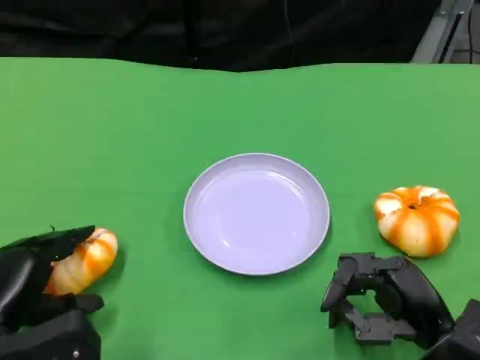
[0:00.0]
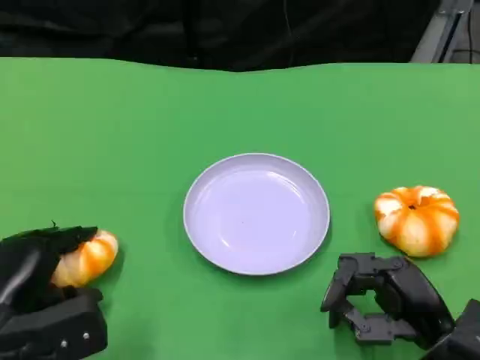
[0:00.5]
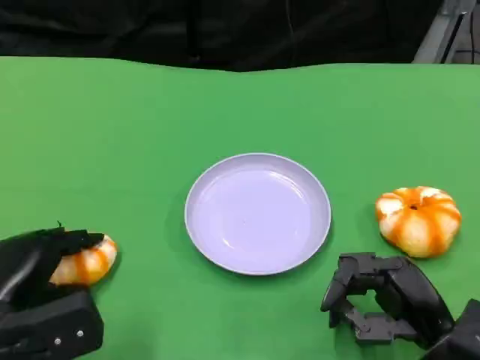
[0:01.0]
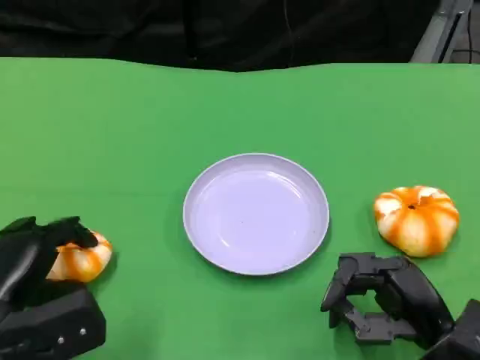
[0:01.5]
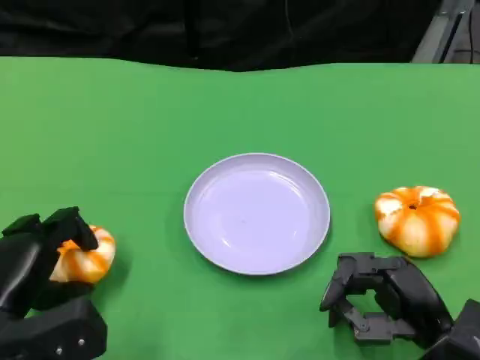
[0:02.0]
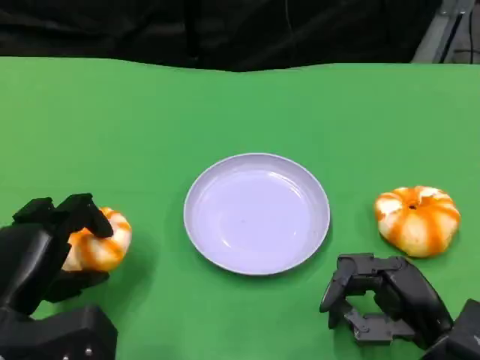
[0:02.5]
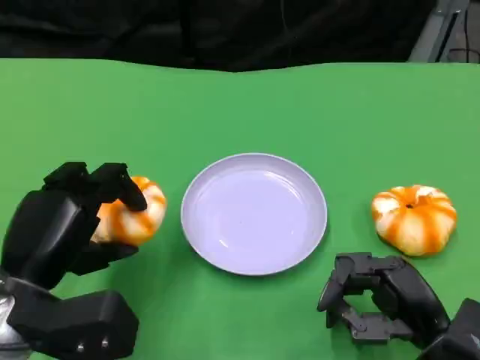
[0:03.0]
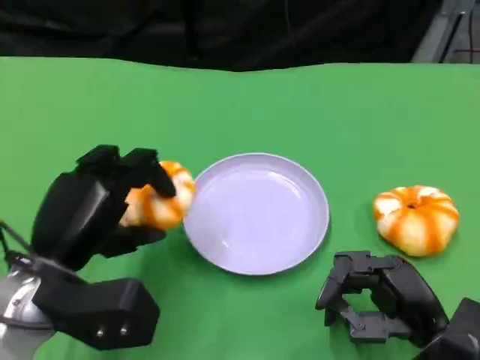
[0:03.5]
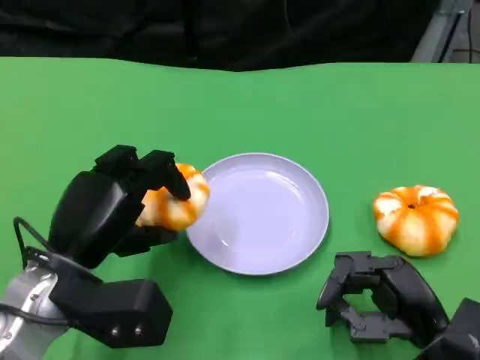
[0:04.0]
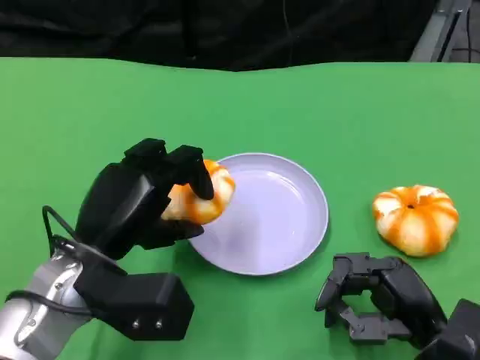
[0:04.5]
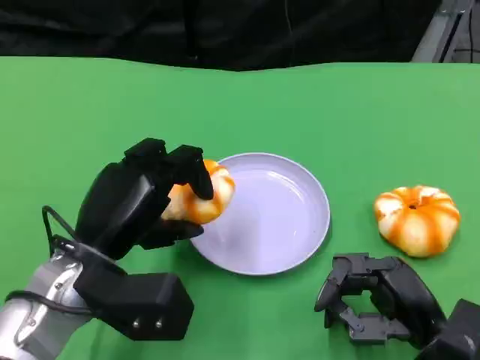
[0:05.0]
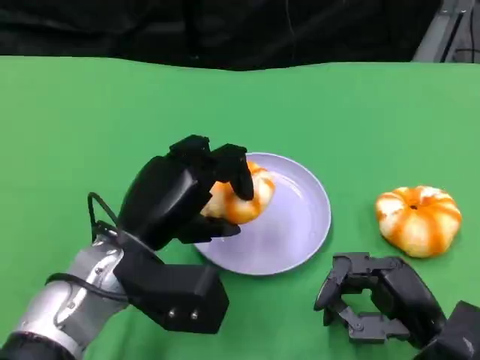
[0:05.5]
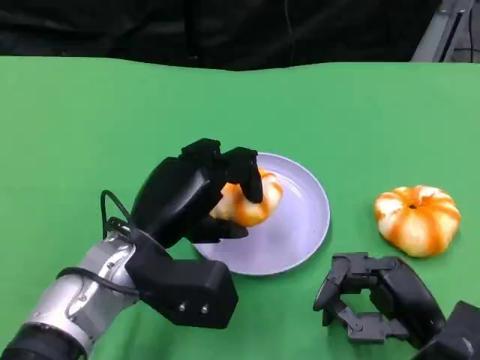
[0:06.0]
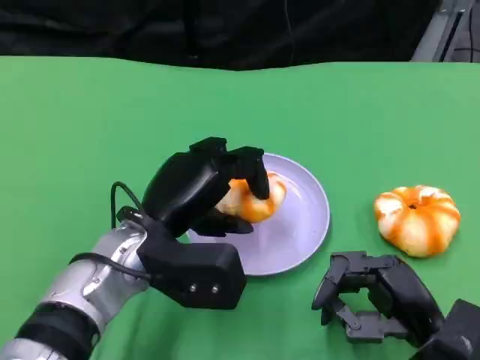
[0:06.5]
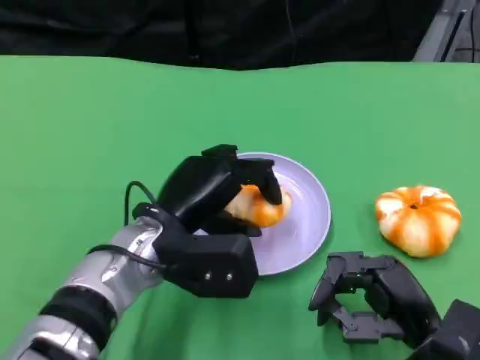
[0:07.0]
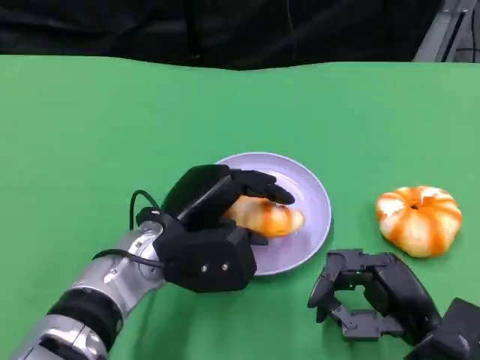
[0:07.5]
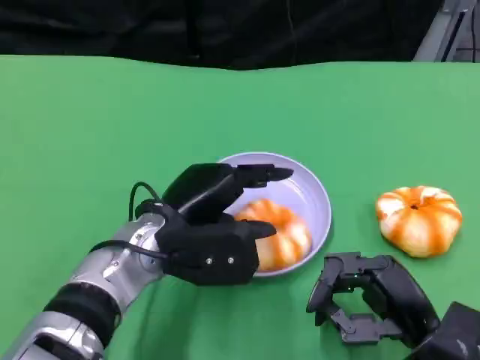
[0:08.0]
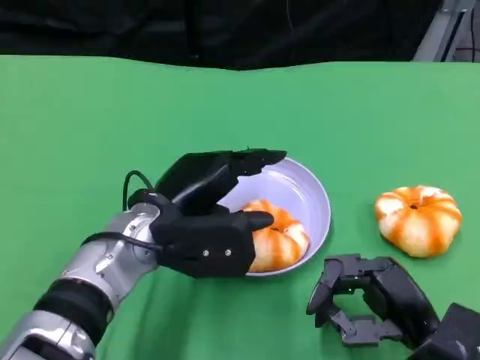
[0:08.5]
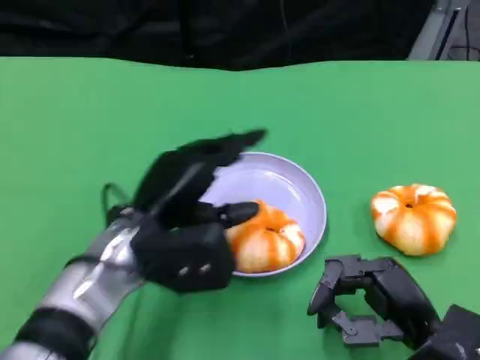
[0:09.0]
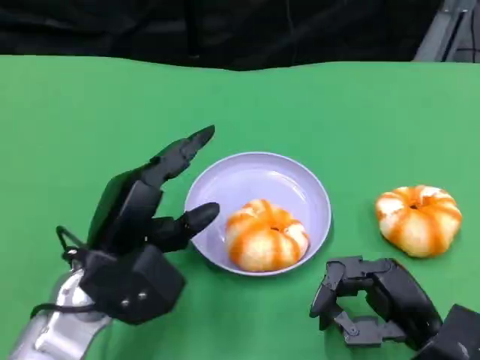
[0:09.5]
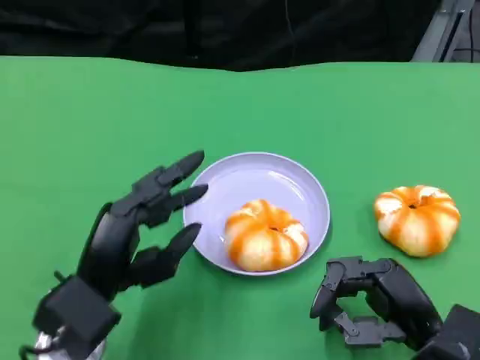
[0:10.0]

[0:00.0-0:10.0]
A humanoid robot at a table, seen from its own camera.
Task of the whole recording: Grasp the bread from the table and place it into the plate.
0:00.0 to 0:02.0: There are only small adjustments of the hands.
0:02.0 to 0:04.0: The left hand travels to the right and upward by roughly 10 cm.
0:04.0 to 0:06.0: The left hand travels to the right by about 5 cm.
0:08.0 to 0:10.0: The left hand is displaced backward and to the left by about 10 cm.

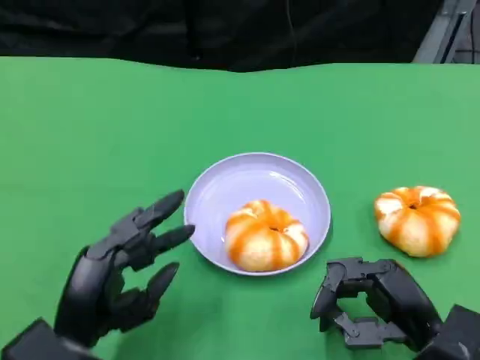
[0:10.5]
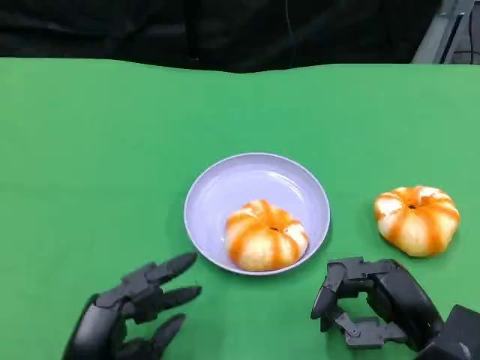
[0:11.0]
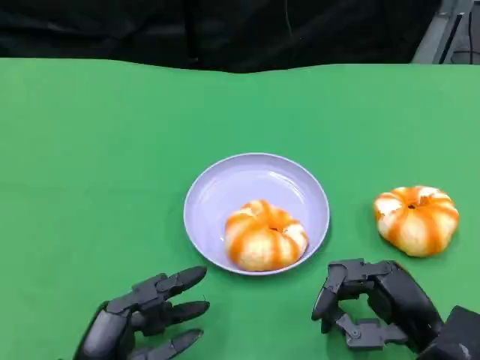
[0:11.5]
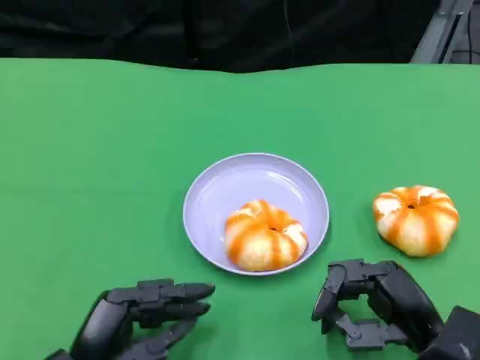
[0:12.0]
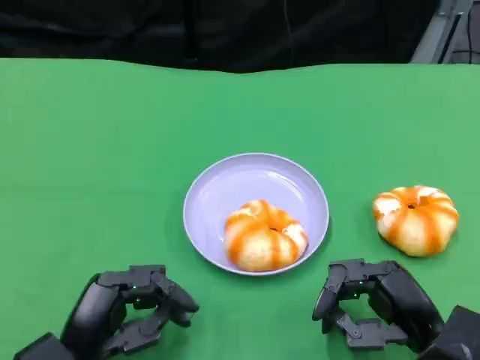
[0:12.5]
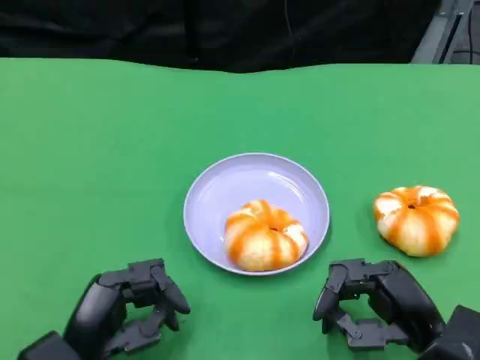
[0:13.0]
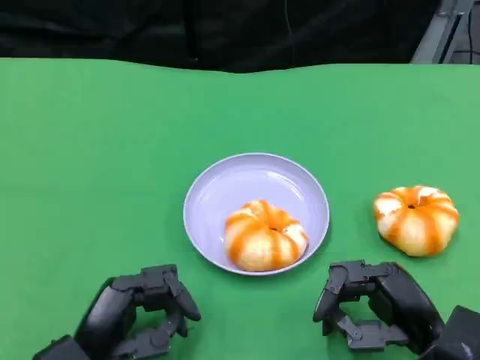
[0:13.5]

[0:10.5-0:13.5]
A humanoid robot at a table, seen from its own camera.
Task of the whole recording: Grasp the bread from the table and place it into the plate.
0:10.5 to 0:13.5: The hands make only small movements.

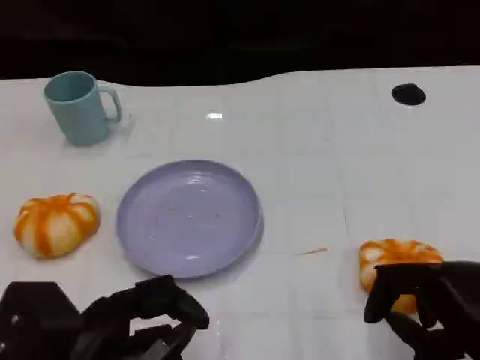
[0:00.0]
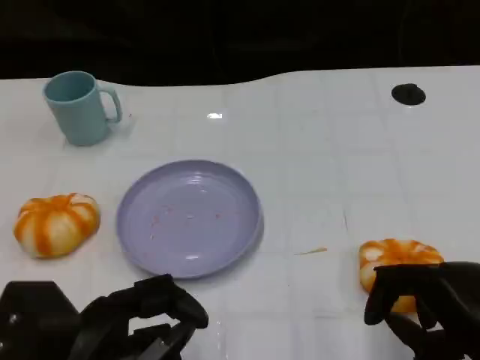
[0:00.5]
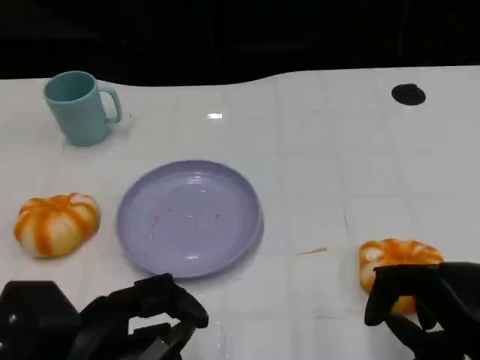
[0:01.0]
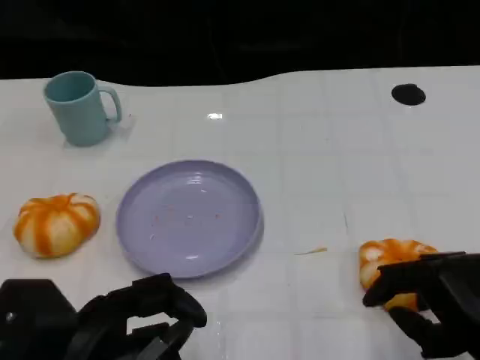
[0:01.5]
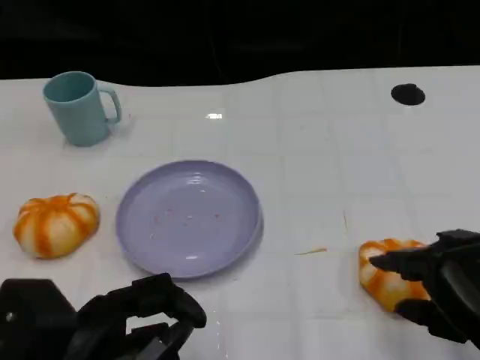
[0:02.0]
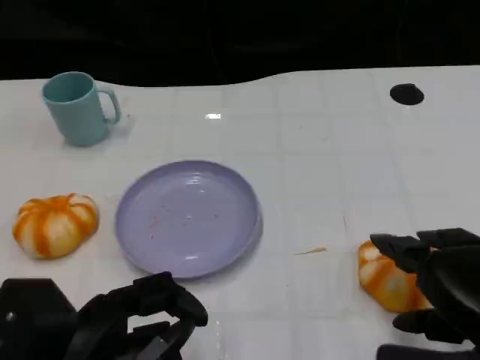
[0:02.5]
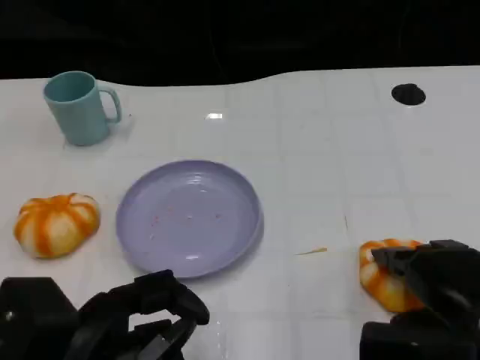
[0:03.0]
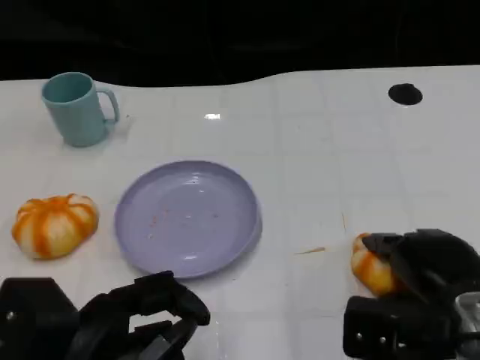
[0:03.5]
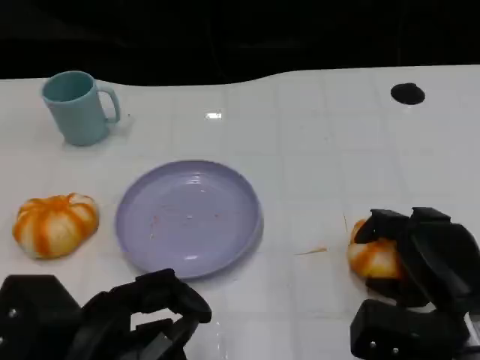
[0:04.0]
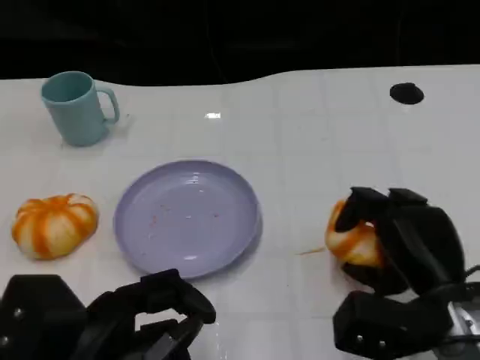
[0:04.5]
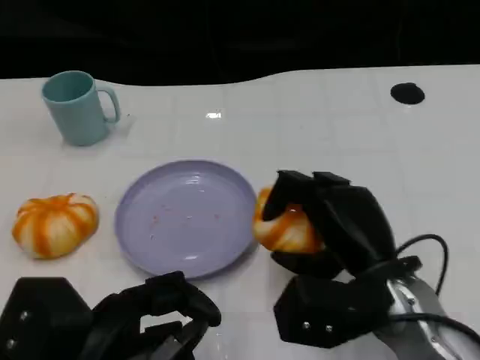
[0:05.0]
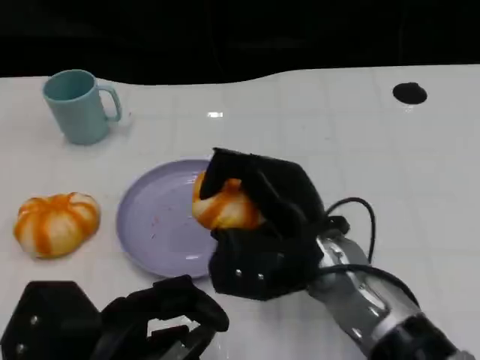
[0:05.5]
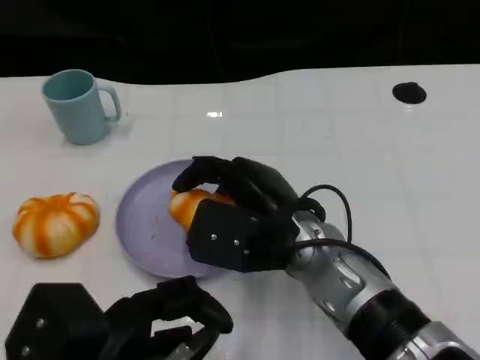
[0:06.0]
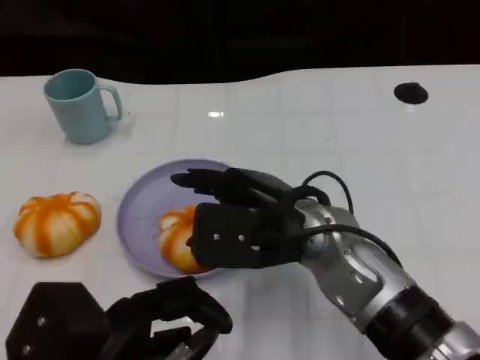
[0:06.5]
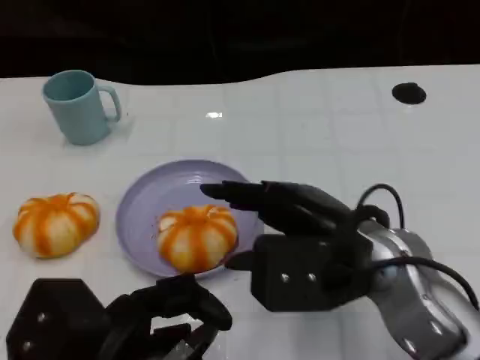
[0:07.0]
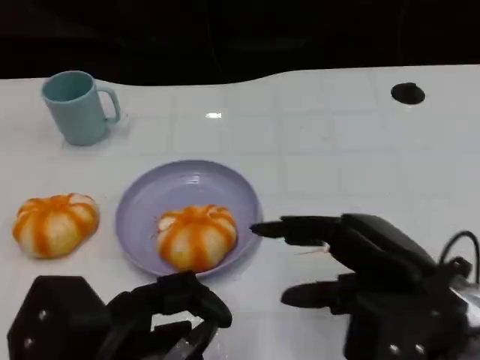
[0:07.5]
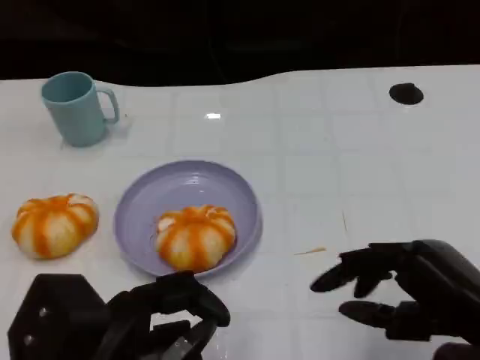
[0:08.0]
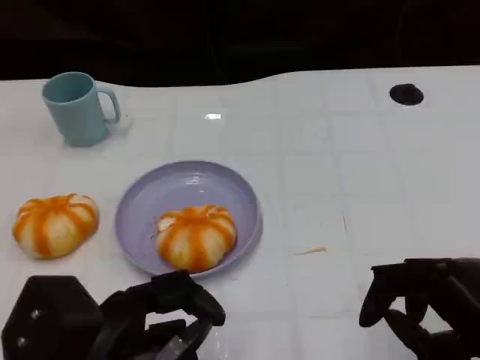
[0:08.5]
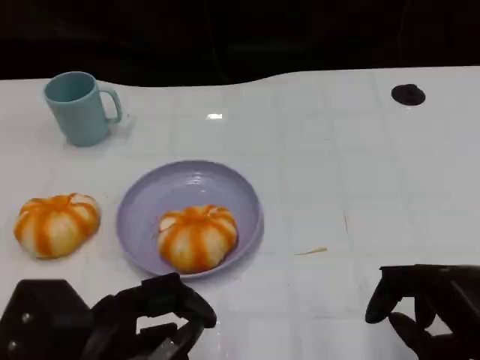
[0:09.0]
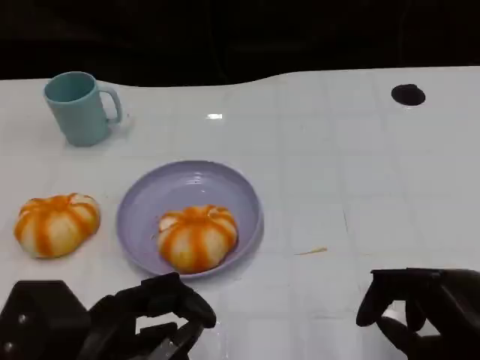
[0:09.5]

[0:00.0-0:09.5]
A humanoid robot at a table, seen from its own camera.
Task of the whole recording: Grasp the bread from the table and place it into the plate.
0:02.0 to 0:04.0: The right hand is displaced downward and forward by some 10 cm.
0:04.0 to 0:05.5: The right hand shifts about 15 cm to the left.
0:05.5 to 0:07.5: The right hand heads to the right and backward, covering approximately 15 cm.
0:07.5 to 0:09.5: The right hand moves backward, about 5 cm.

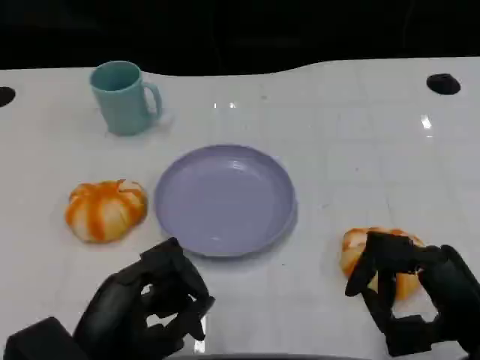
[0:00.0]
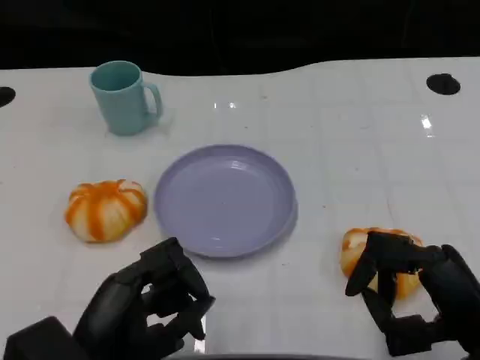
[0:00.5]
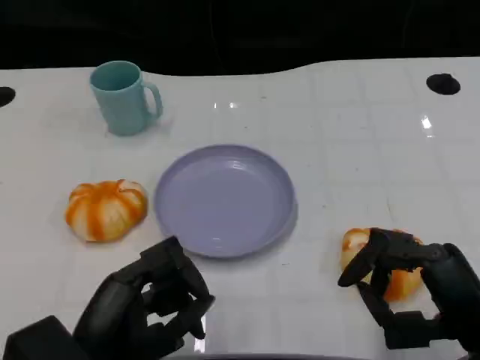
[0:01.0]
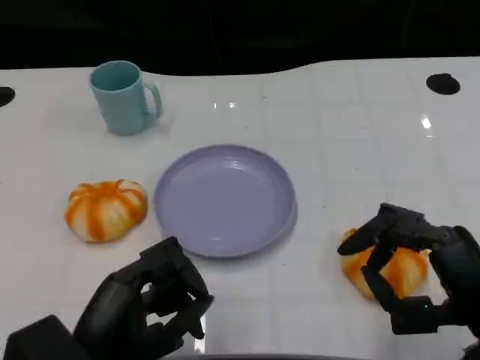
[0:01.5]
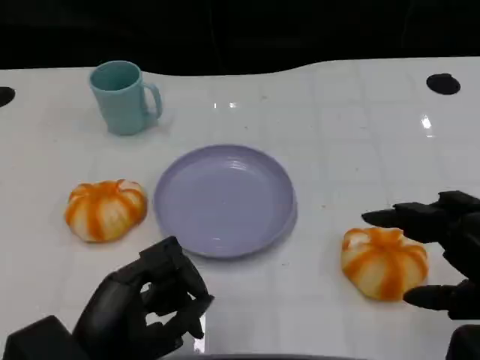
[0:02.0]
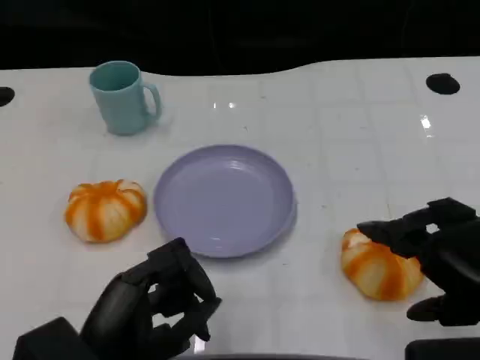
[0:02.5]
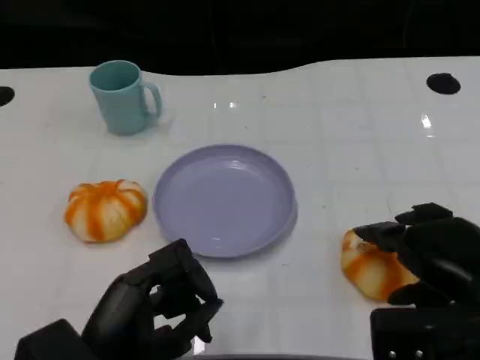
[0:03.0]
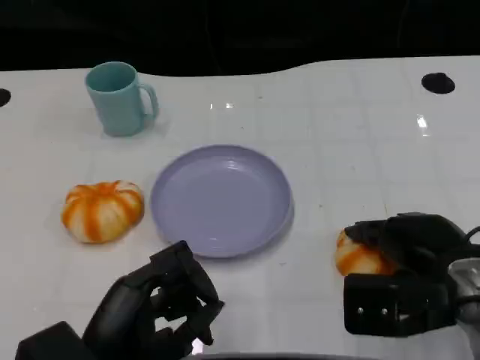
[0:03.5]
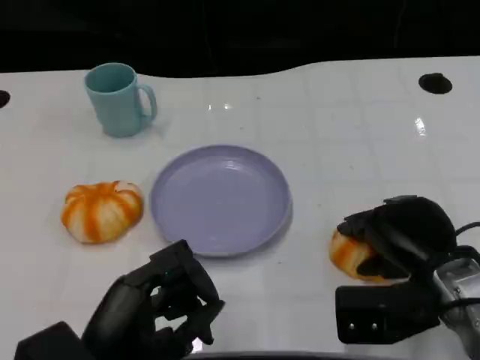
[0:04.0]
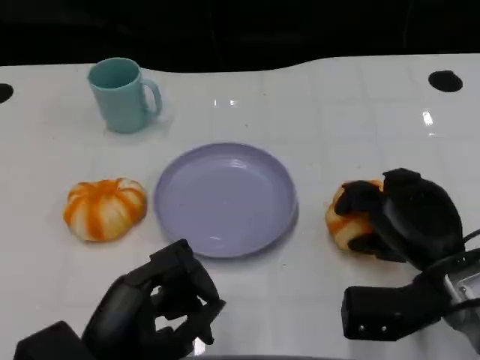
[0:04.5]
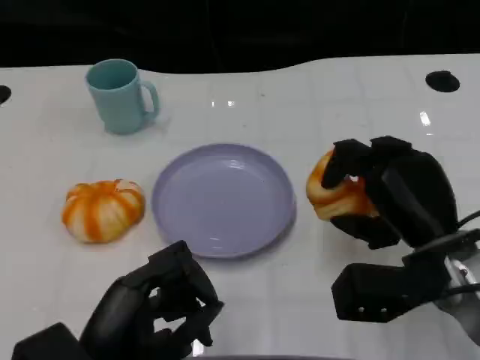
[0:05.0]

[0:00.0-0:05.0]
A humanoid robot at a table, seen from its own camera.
Task of the whole recording: Grasp the bread from the table and place it into the plate.
0:00.0 to 0:02.5: The right hand travels upward by some 5 cm.
0:02.5 to 0:05.0: The right hand moves forward, to the left and downward, approximately 10 cm.
